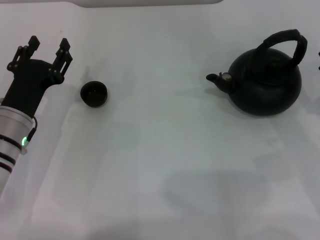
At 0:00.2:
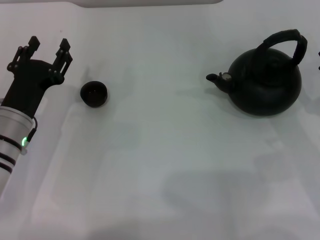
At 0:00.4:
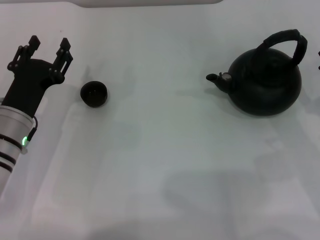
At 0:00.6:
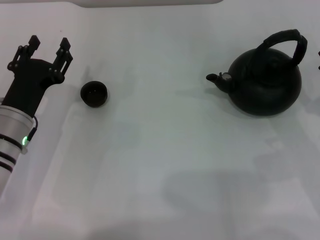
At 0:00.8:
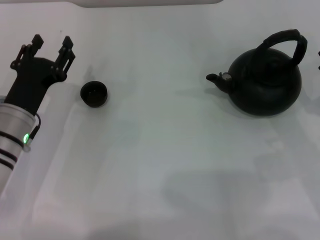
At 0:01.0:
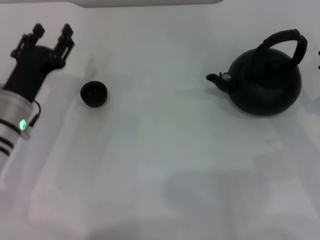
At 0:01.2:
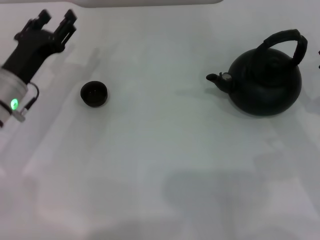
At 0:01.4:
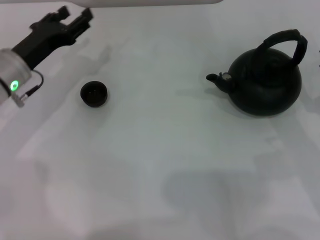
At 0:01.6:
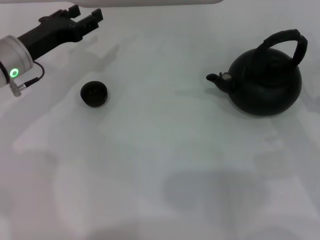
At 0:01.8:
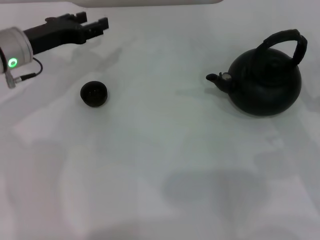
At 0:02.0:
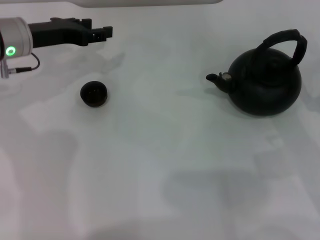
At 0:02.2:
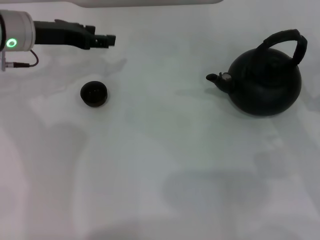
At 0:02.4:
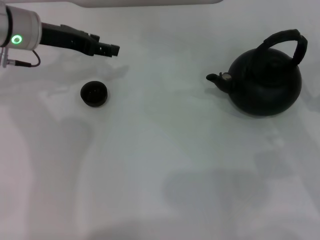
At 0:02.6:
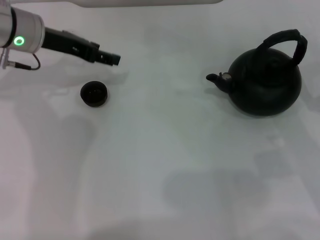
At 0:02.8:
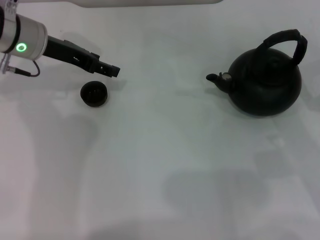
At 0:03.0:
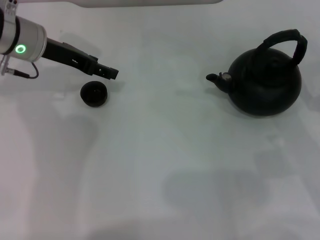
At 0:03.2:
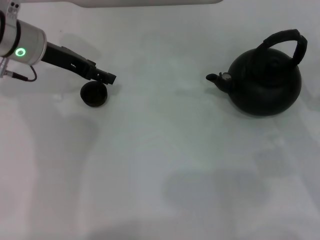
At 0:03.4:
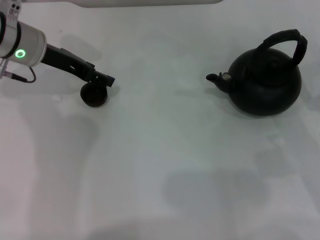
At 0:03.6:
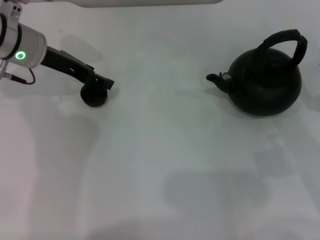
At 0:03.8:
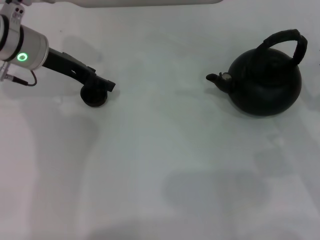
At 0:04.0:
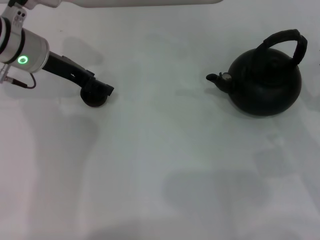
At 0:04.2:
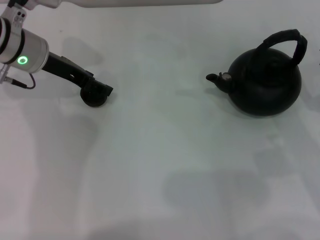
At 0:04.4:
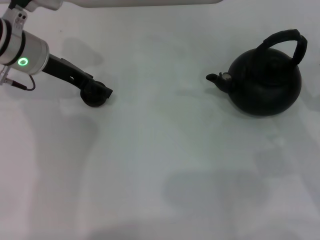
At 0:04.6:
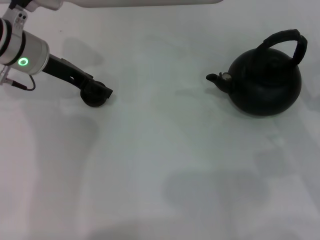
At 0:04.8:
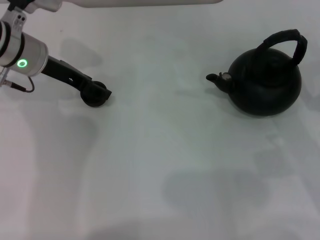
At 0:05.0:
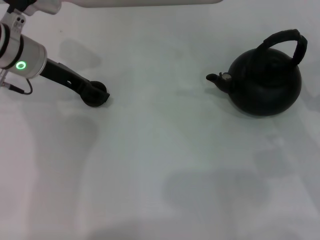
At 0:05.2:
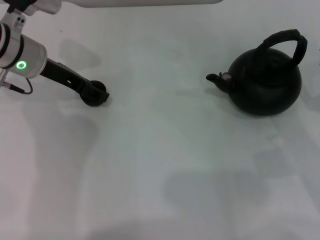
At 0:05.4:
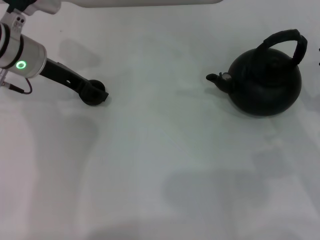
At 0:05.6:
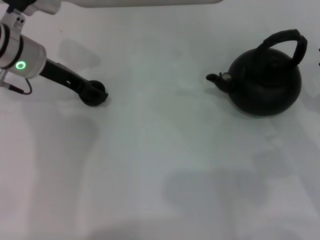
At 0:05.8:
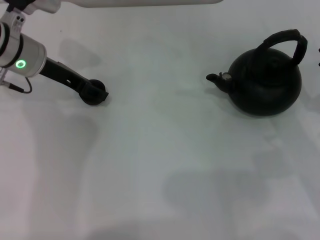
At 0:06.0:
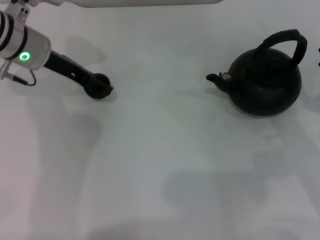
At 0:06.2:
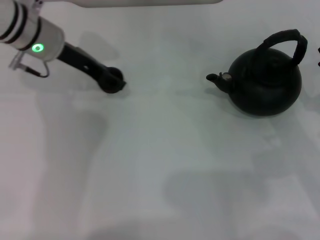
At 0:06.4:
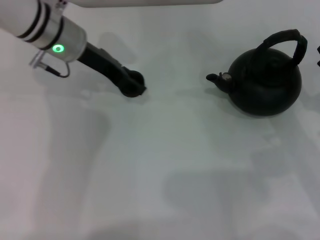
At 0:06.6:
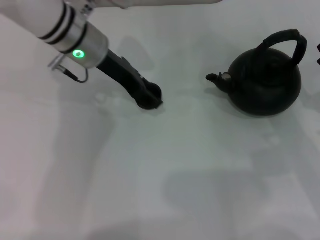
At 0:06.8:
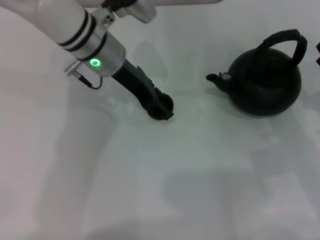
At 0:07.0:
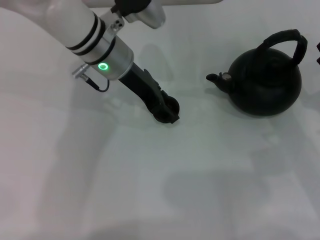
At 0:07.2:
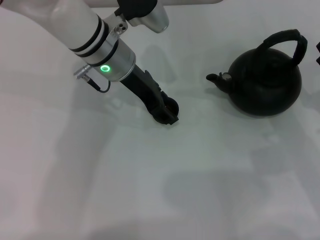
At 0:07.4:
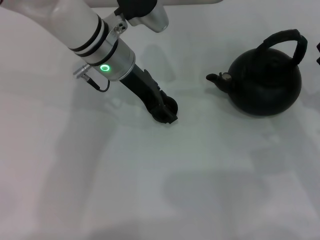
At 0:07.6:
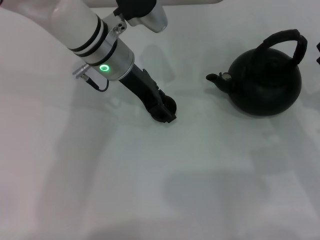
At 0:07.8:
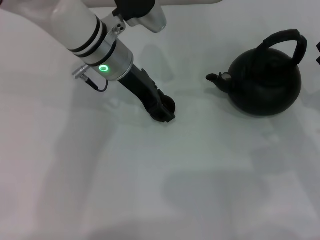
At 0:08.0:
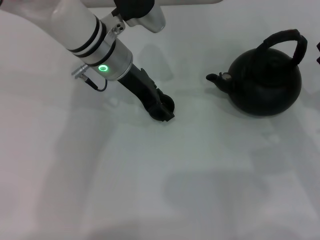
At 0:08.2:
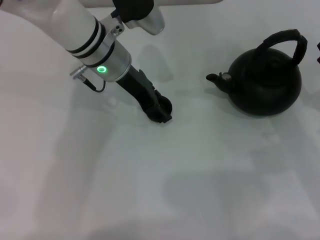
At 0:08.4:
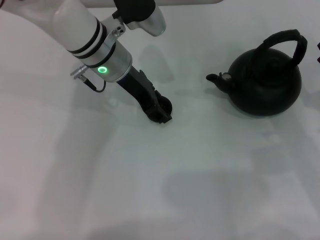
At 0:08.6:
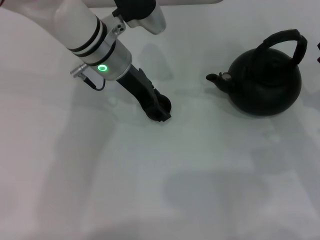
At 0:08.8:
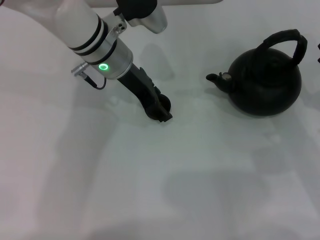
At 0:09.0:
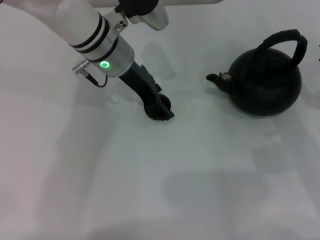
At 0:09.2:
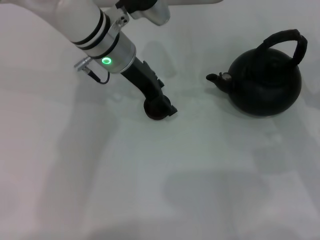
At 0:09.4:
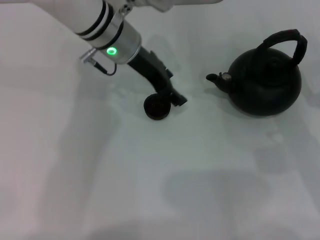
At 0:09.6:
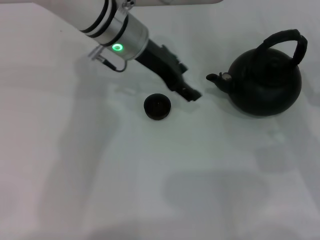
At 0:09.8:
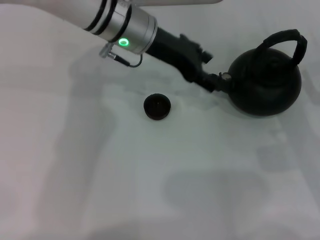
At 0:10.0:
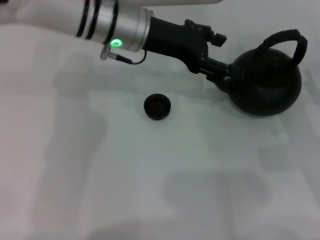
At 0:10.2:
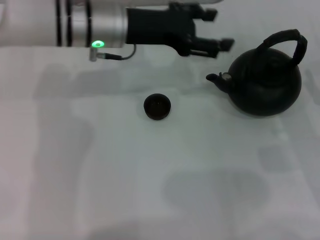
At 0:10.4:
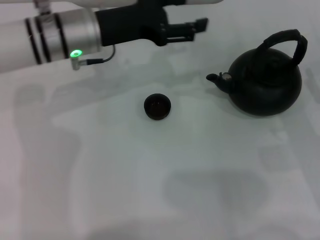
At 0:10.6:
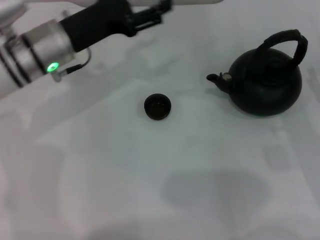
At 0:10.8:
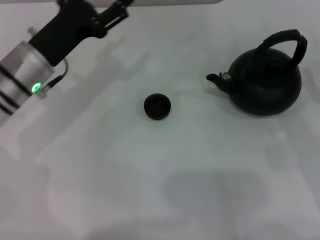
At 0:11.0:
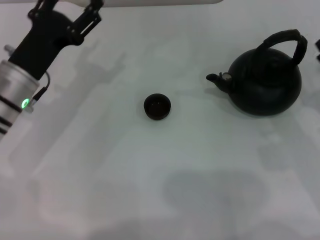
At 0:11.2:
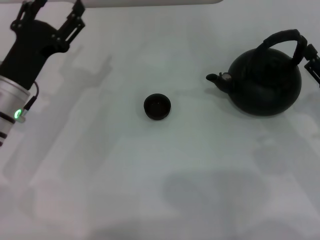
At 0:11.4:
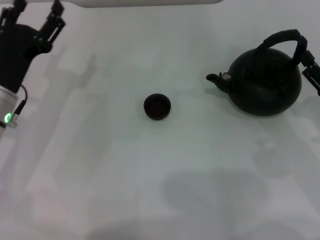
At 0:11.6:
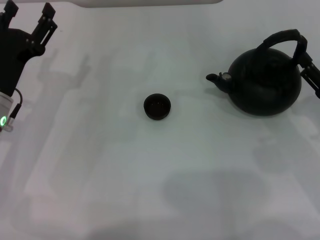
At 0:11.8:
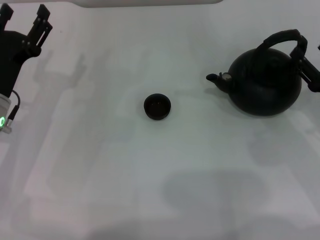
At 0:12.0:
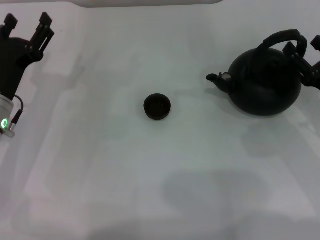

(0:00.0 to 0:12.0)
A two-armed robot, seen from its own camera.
Task of the whole recording: Grasp the handle of the teapot with one hand and pour tea into the teacup.
Step, 0:00.0 - 0:06.0: Pick up the teacup with the left gripper.
Step, 0:06.2 - 0:09.4: Place the teacup in the center of view with the left gripper.
0:00.0 - 0:01.6: The left gripper goes some 10 cm forward and upward.
0:01.6 - 0:03.0: The left gripper shifts some 5 cm upward, and opens up.
0:03.0 - 0:04.4: The grippers stay close to where they were, moving slightly.
0:04.4 - 0:06.0: The left gripper closes its fingers.
0:06.0 - 0:07.6: The left gripper travels to the right by some 10 cm.
0:07.6 - 0:09.0: The left gripper opens.
0:09.0 - 0:10.4: The left gripper travels to the left by some 5 cm.
0:10.4 - 0:12.0: The left gripper goes some 20 cm to the left, backward and downward.

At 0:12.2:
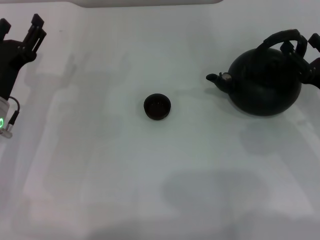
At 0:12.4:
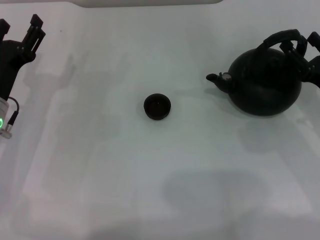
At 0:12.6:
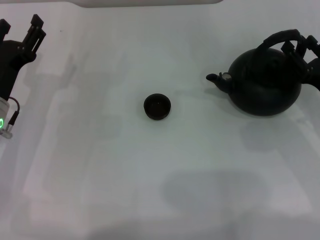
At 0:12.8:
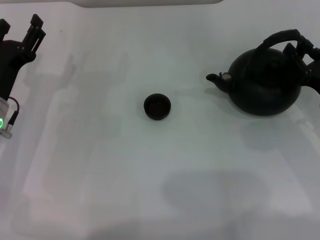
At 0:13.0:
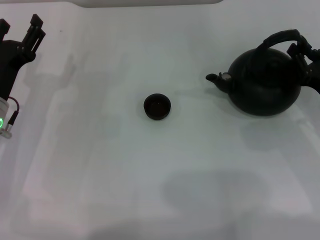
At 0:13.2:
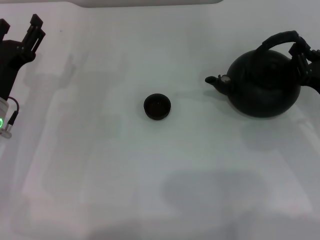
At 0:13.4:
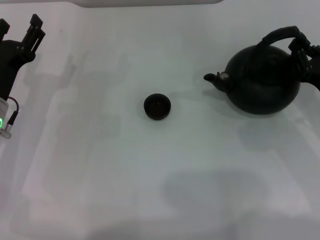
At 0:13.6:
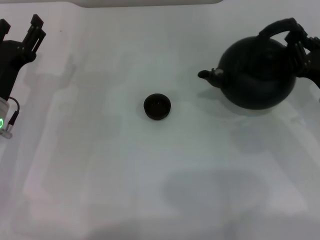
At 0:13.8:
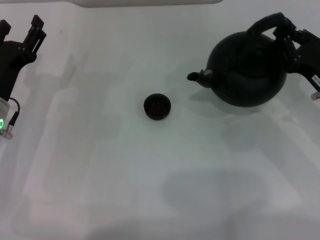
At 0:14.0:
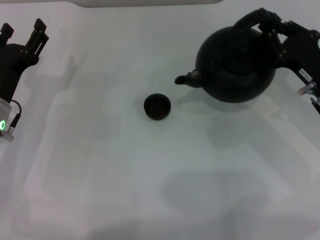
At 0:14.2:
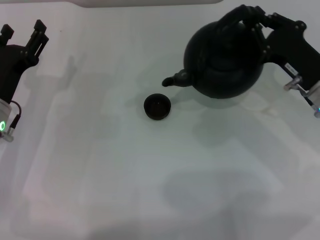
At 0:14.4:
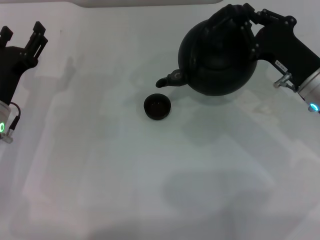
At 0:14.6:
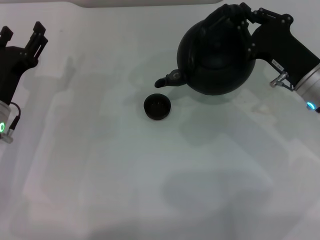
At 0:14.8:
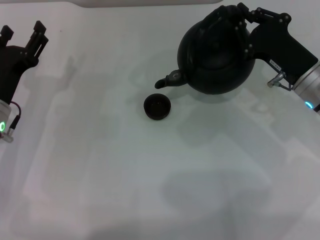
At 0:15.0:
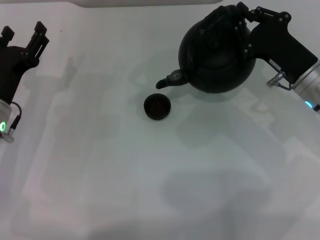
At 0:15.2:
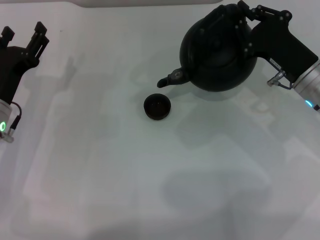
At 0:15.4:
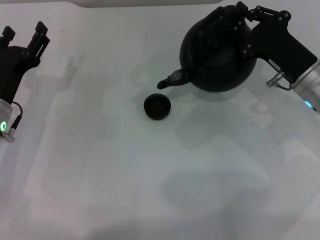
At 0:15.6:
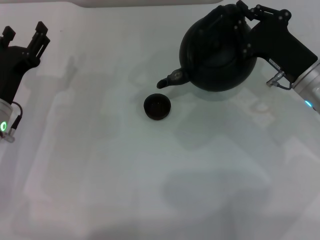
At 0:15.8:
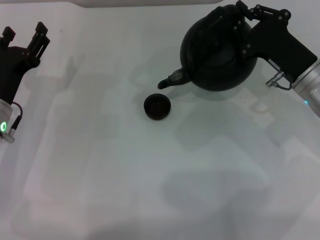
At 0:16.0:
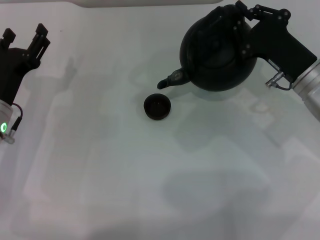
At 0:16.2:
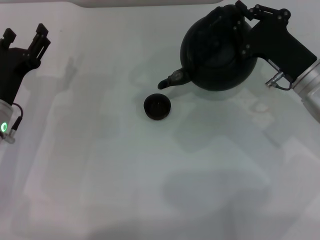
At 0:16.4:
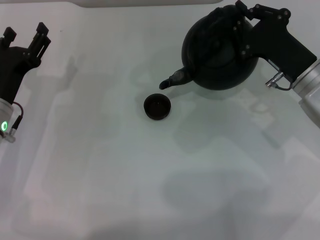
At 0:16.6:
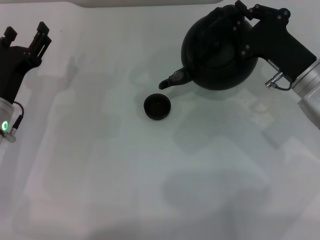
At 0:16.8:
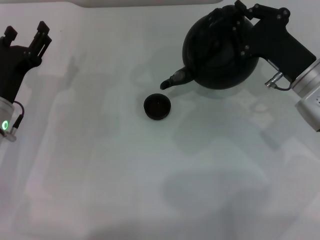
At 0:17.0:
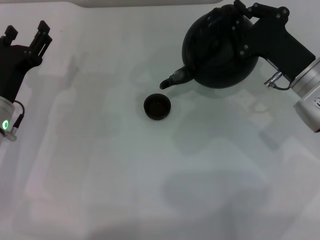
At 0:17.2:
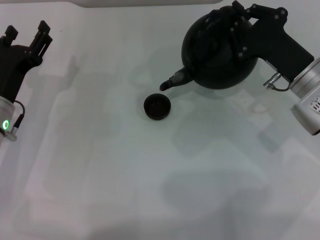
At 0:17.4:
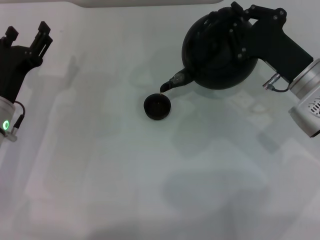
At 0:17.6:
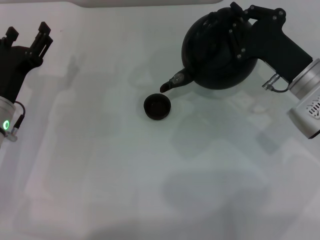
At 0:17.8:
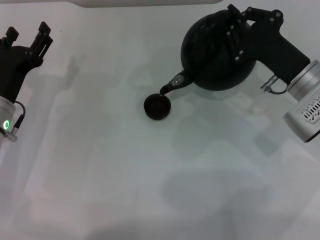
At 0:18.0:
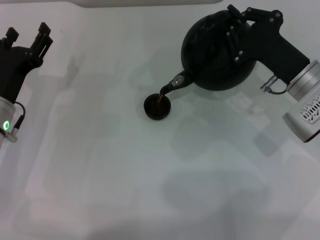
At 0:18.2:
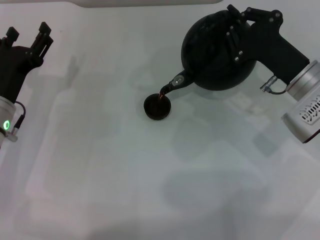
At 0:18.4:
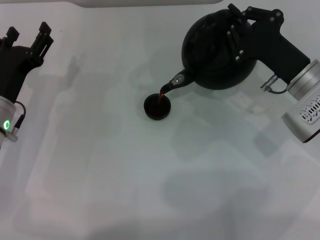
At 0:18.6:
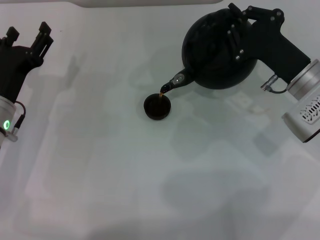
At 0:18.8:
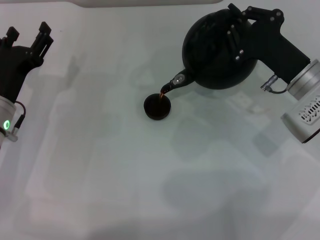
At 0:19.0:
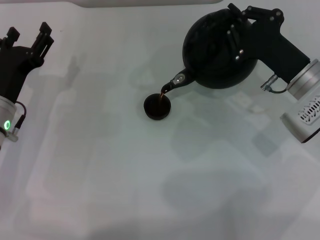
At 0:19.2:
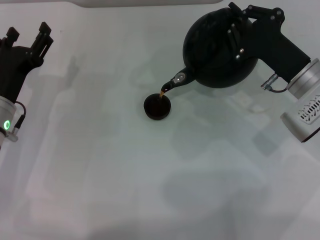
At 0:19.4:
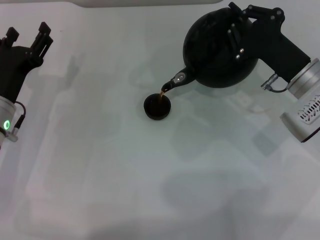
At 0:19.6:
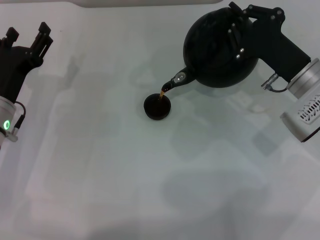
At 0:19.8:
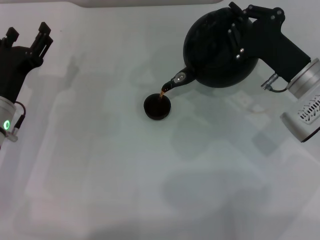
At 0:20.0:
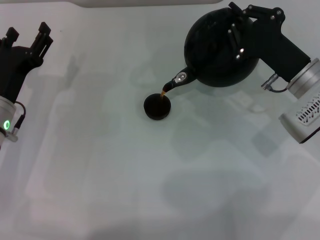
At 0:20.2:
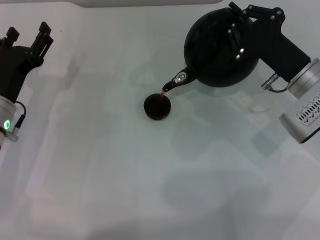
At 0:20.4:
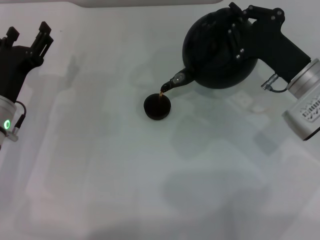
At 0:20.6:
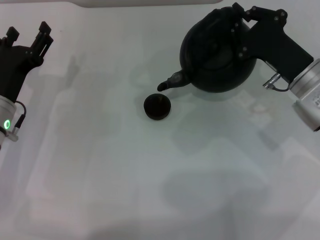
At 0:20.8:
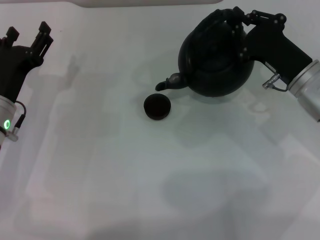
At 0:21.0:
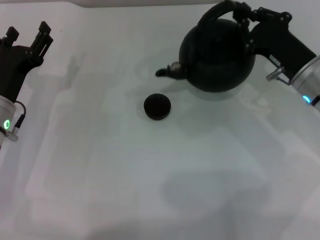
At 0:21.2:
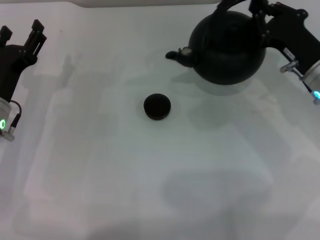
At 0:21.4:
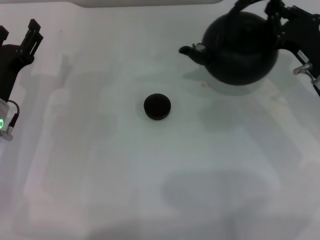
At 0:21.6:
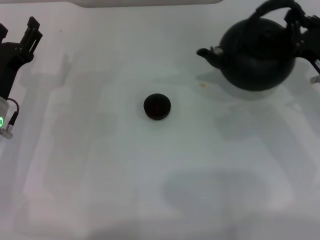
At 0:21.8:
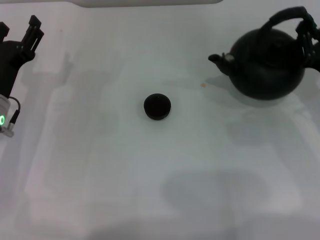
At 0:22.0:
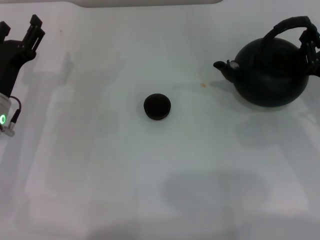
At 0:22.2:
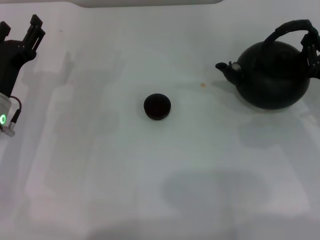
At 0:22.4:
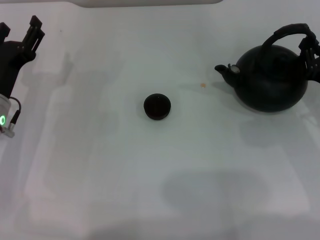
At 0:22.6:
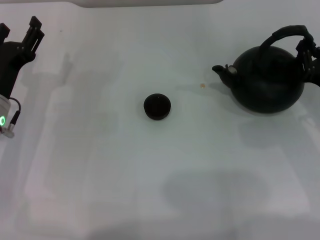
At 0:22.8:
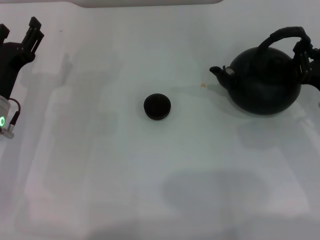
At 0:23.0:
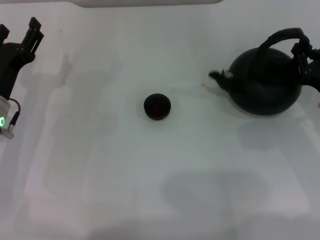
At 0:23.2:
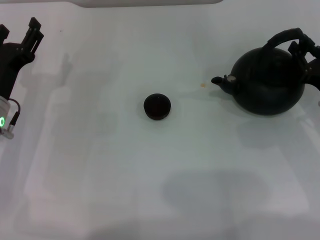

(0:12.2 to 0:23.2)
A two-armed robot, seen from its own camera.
Task of the whole recording: Grasp the handle of the teapot with one hand and pour tea into the teacup.
Step, 0:13.8 - 0:20.8: Pour tea into the teacup with the right gripper.
0:12.2 - 0:13.8: The right gripper closes up.
0:13.8 - 0:15.4: The right gripper moves to the left, about 5 cm.
0:15.4 - 0:18.4: There are only small adjustments of the grippers.
0:18.4 - 0:20.0: The two grippers keep their place.
0:20.0 - 0:21.6: The right gripper shifts approximately 5 cm to the right.
0:21.6 - 0:23.2: The grippers stay close to where they were, moving slightly.
